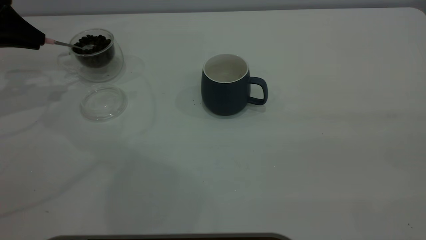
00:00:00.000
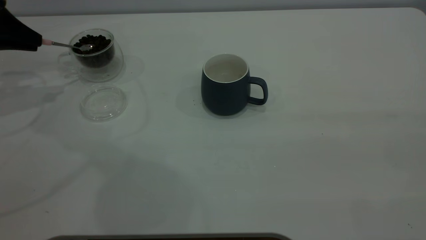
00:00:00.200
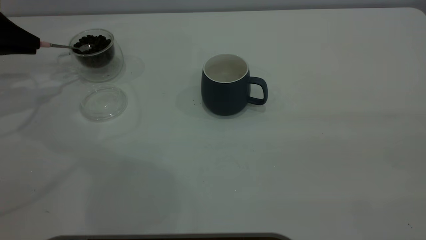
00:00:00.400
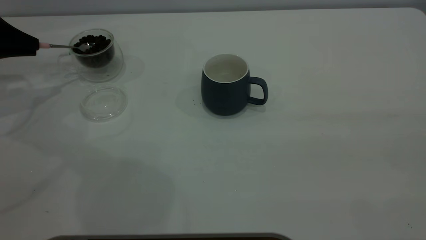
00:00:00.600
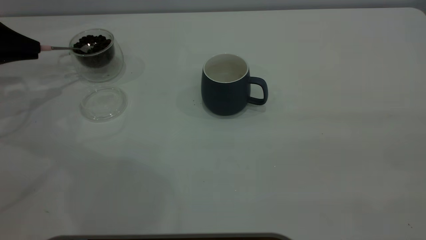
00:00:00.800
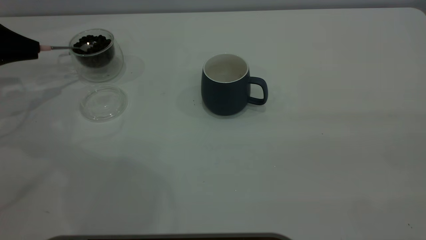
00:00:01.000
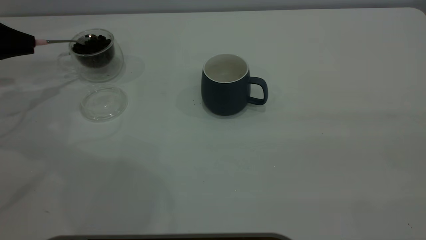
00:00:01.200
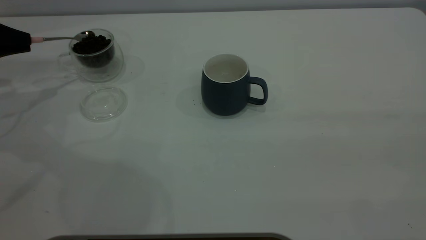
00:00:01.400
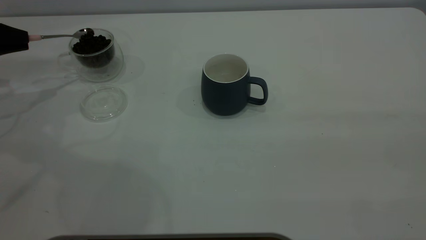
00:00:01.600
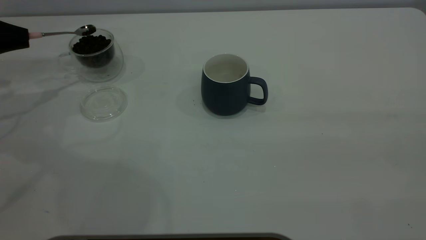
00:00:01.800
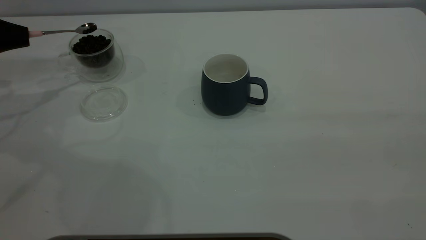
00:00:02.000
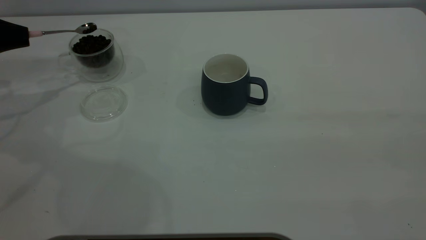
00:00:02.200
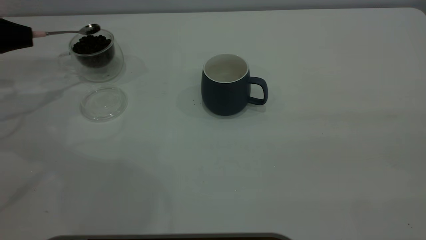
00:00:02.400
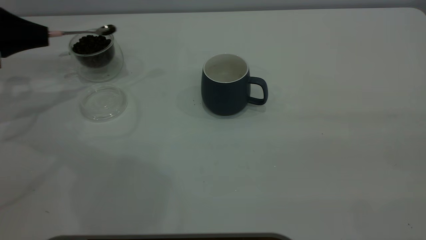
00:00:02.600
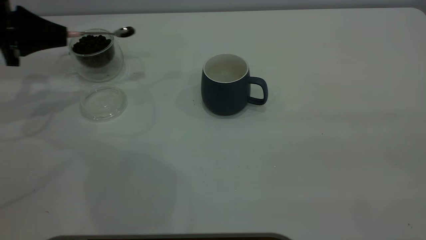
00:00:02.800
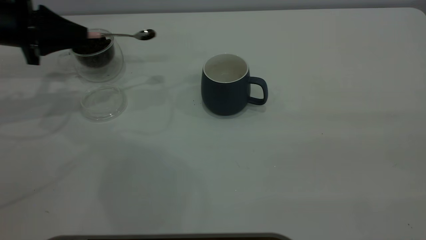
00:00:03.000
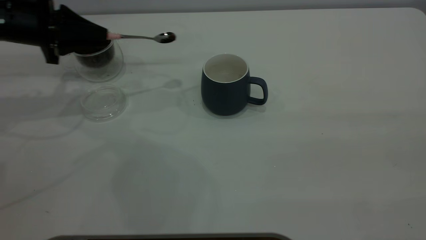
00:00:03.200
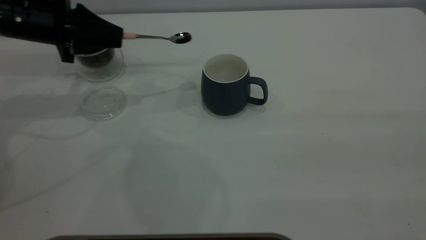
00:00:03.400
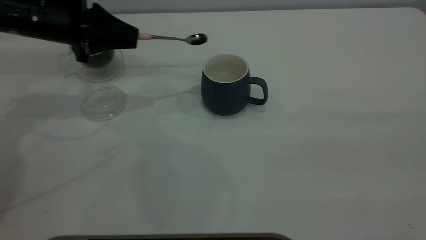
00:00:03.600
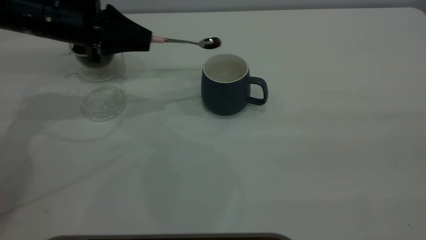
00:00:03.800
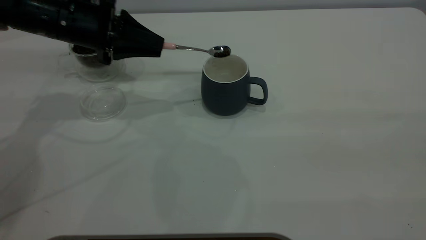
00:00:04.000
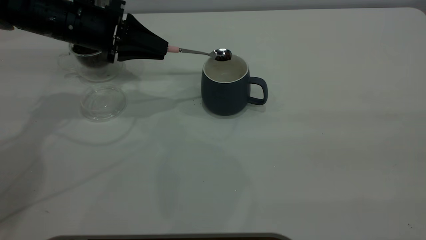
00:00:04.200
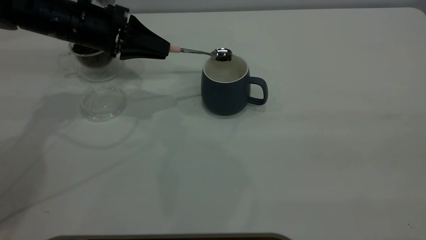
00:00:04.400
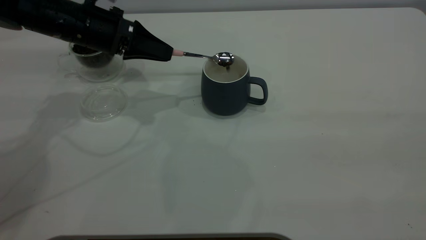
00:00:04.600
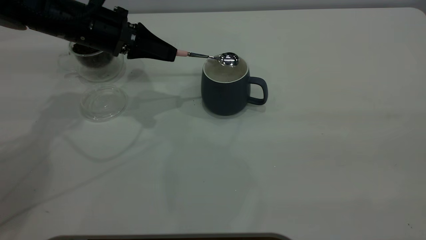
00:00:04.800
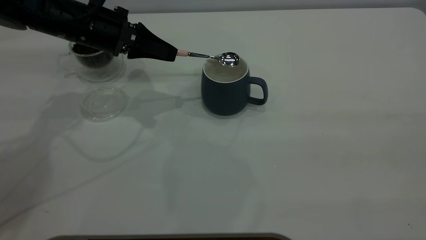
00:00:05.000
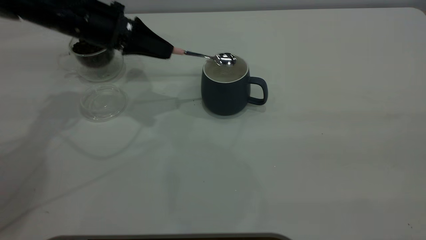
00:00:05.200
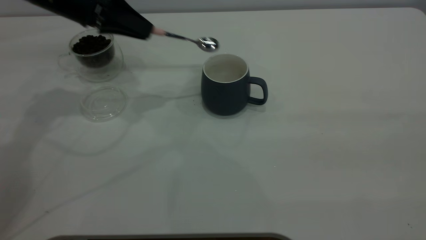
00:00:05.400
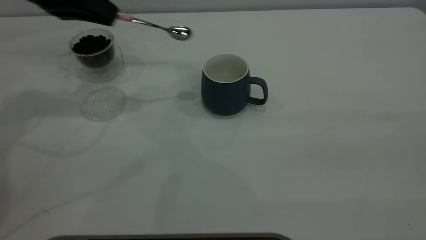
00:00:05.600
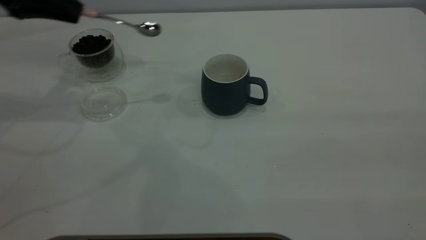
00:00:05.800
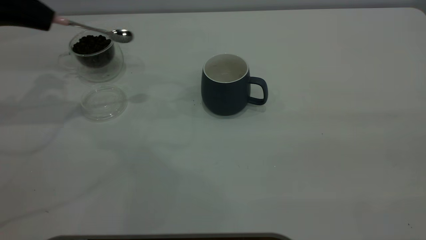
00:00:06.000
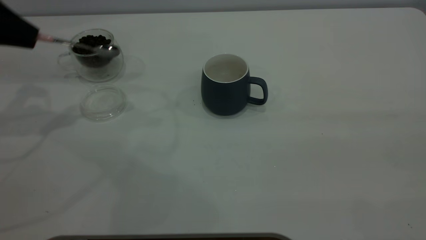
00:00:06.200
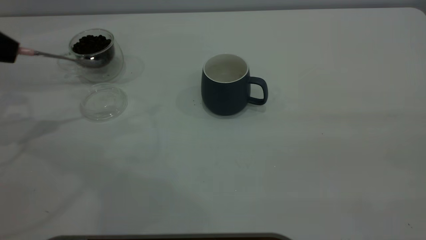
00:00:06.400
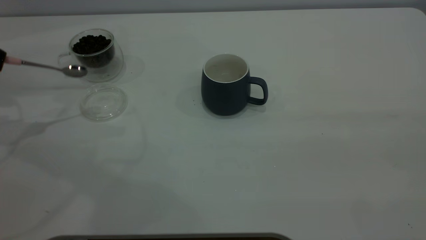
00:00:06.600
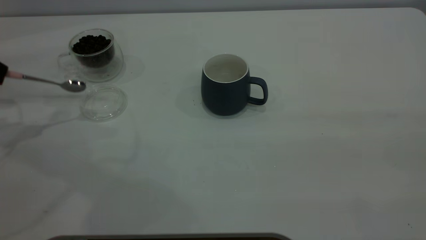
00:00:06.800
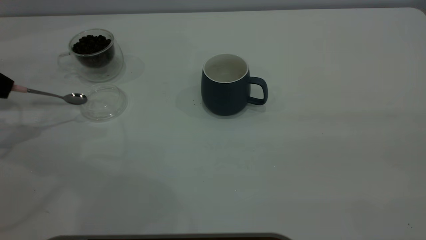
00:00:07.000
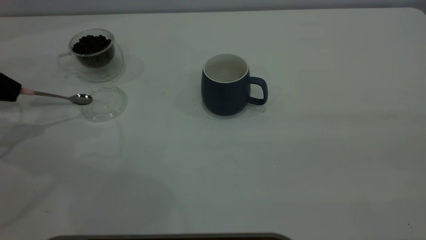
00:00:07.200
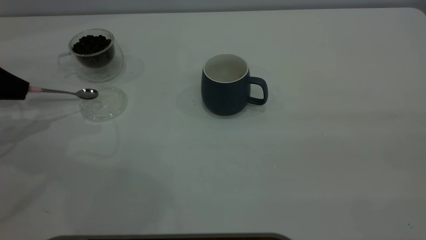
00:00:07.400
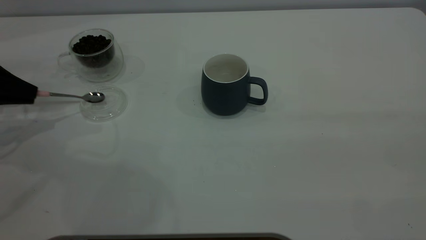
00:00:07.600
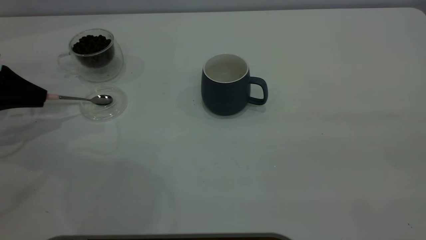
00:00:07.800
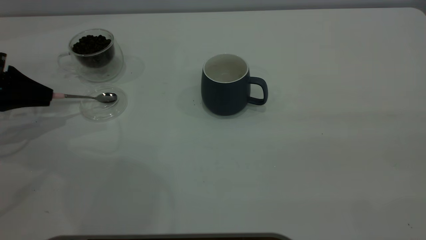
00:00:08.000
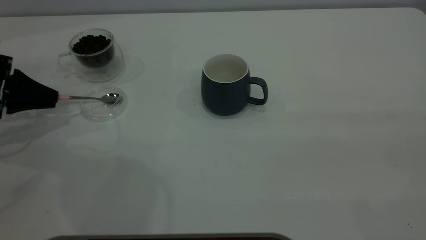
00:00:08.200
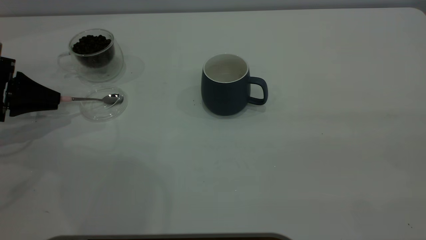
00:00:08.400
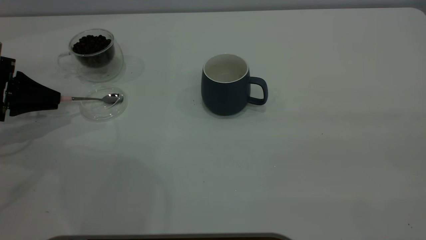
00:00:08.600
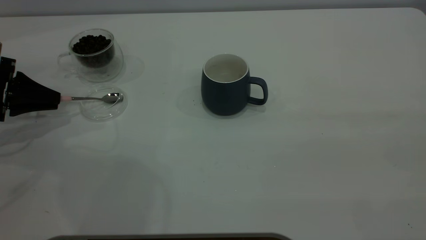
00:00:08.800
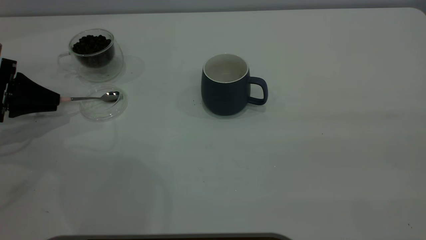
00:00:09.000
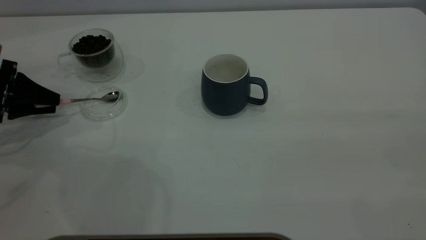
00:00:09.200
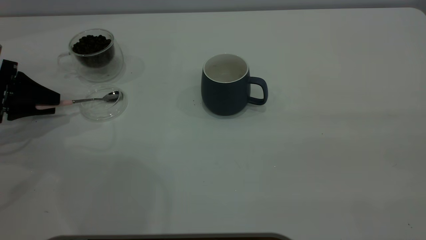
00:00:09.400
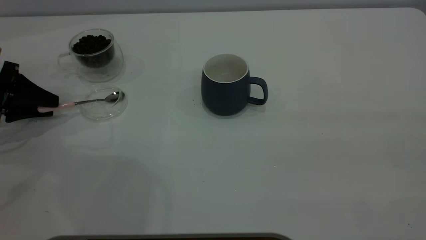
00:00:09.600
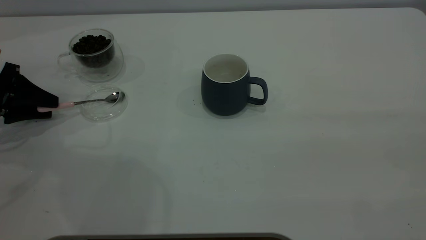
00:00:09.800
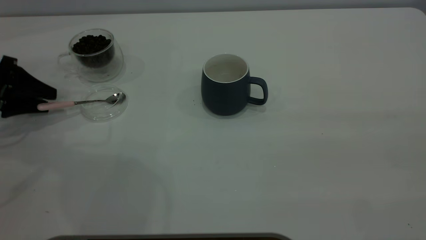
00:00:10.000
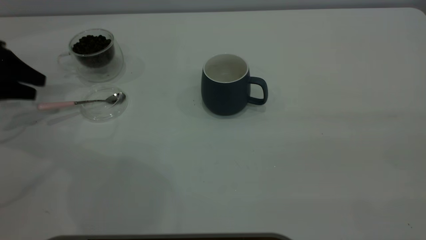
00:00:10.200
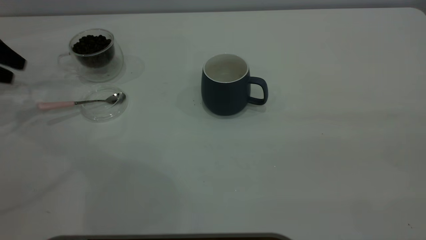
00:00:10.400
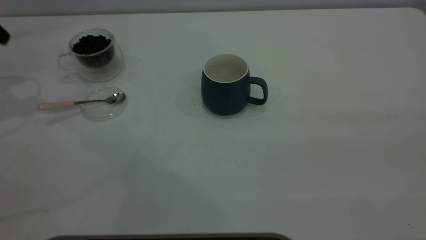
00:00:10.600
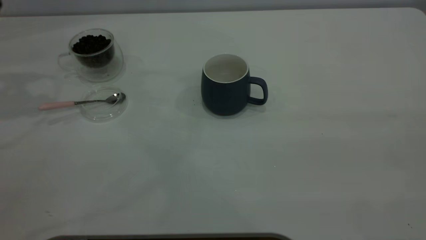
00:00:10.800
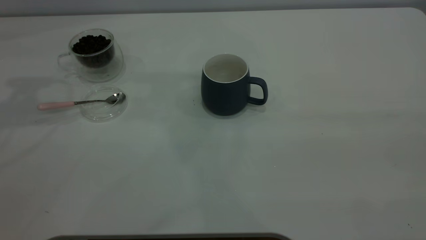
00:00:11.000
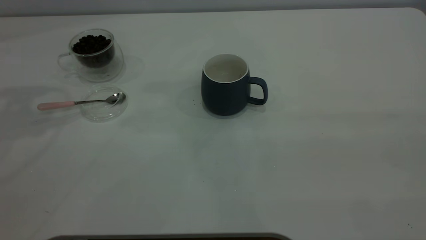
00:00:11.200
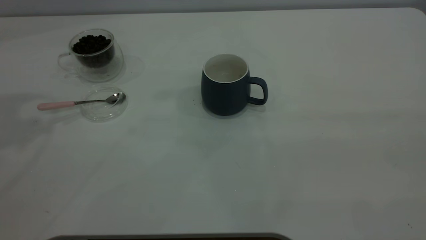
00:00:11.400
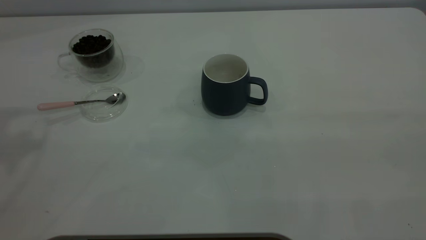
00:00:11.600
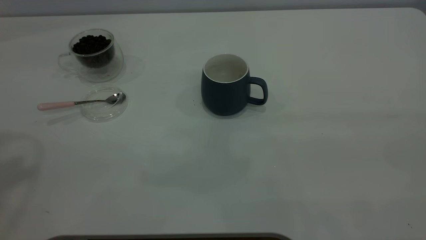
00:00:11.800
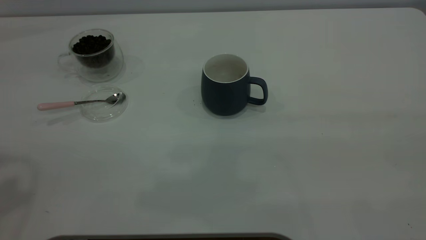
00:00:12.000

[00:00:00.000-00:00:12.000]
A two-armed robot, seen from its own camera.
Task of the whole recording: the right gripper place the grey cup in the center of the table, the left gripper take the pink spoon from the cup lid and scoop out the coffee beans from the coffee cup and put them into the grey cup, the left gripper put the spoon back into the cup lid.
Step, 00:00:00.000 to 00:00:05.200: Scoop a spoonful of beans into the cup.
Step, 00:00:05.600 to 00:00:10.200: Place the spoon back in its original place.
00:00:00.000 to 00:00:01.600: The left gripper shifts by about 5 cm.
00:00:01.600 to 00:00:03.000: The left gripper heads to the right, covering some 10 cm.
00:00:03.000 to 00:00:04.400: The left gripper heads to the right, covering roughly 10 cm.
00:00:04.400 to 00:00:06.000: The left gripper is displaced to the left and upward by approximately 15 cm.
00:00:06.000 to 00:00:07.600: The left gripper travels downward and to the left by about 15 cm.
00:00:07.600 to 00:00:09.000: There are only small adjustments of the grippers.
00:00:09.000 to 00:00:10.400: The left gripper is displaced upward by roughly 10 cm, and opens up.
00:00:10.400 to 00:00:12.000: The left gripper moves upward, backward and to the right, roughly 35 cm.

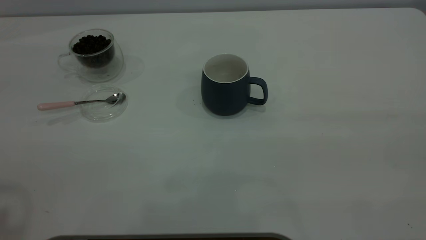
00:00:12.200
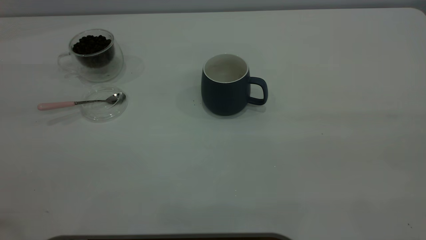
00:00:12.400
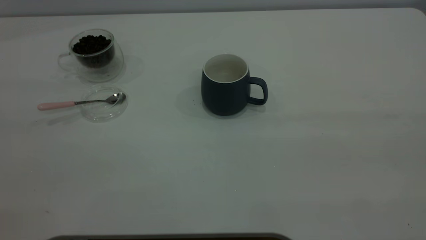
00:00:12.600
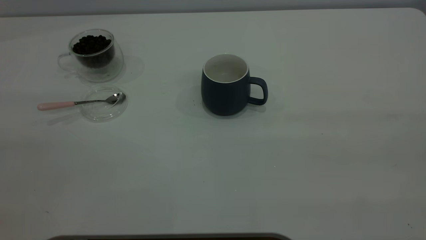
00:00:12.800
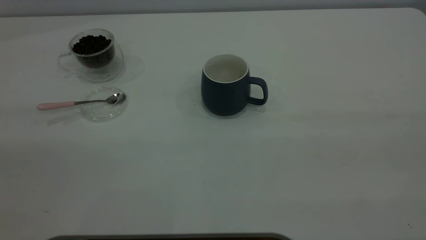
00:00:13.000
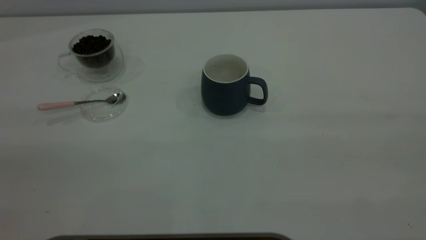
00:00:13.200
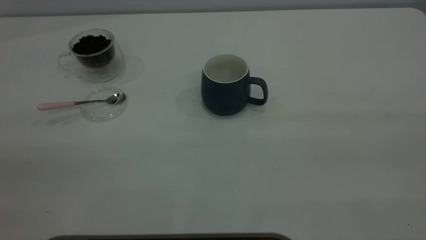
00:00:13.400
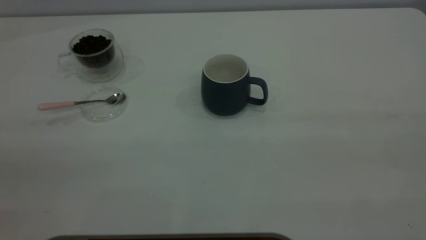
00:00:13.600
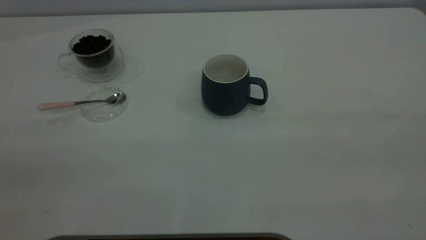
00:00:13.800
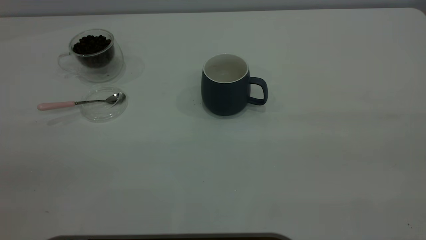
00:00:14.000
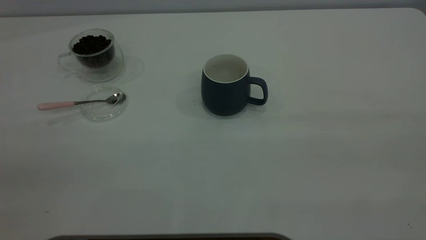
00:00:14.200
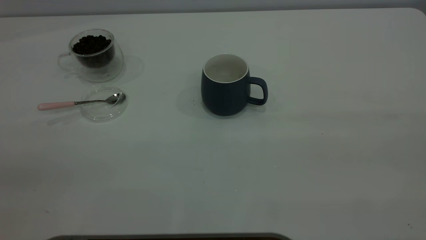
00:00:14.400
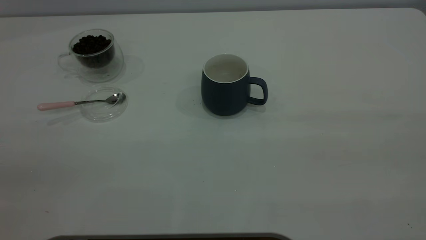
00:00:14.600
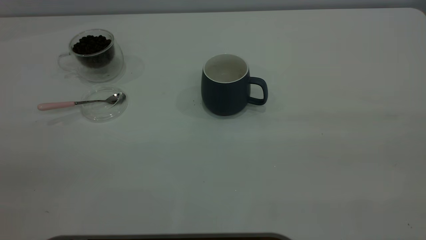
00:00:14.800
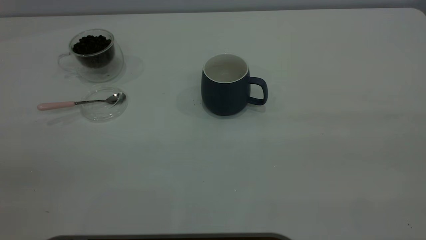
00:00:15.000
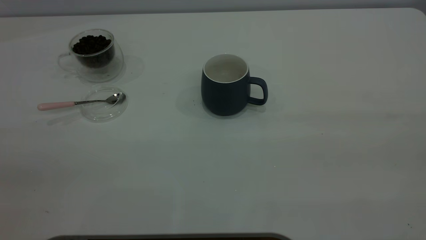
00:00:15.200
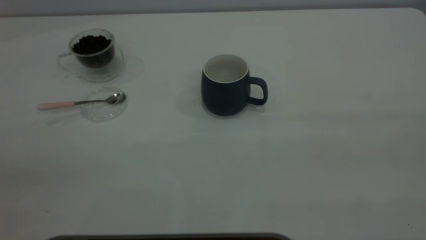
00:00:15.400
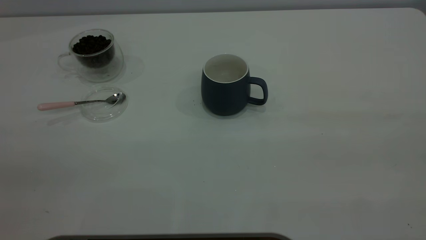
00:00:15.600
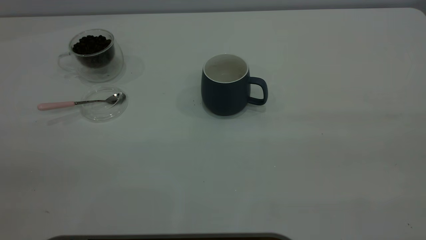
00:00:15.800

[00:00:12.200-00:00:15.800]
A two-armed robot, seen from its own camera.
Task of the whole recording: the right gripper place the grey cup in the center of the table, the left gripper take the pink spoon from the cup lid and scoop out the coffee beans from the coffee cup and put them into the grey cup, the left gripper put the spoon back into the cup lid.
00:00:14.000 to 00:00:15.800: The two grippers keep their place.
